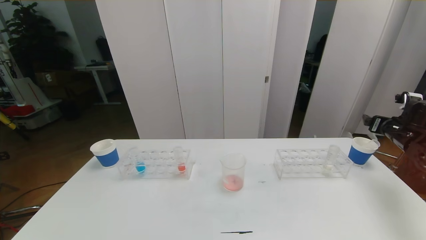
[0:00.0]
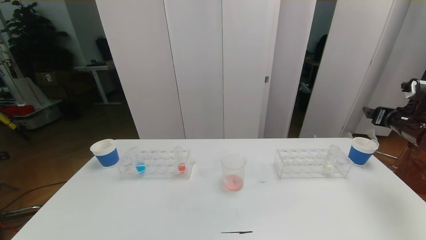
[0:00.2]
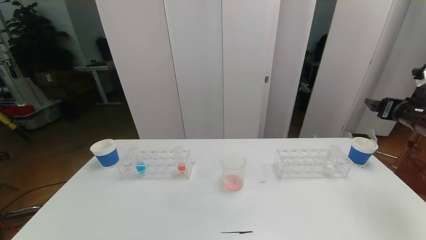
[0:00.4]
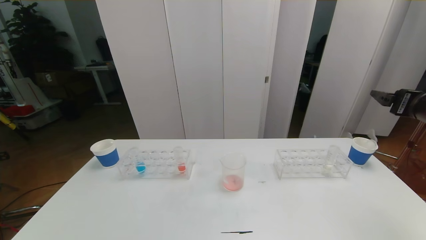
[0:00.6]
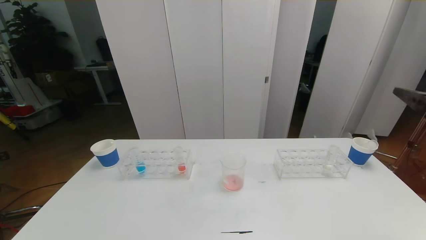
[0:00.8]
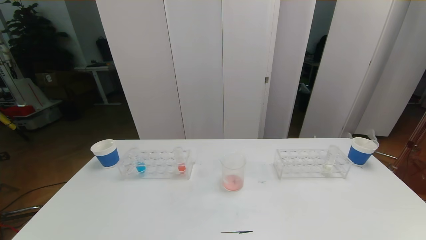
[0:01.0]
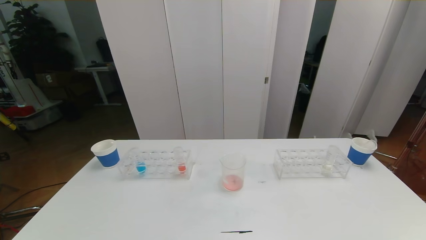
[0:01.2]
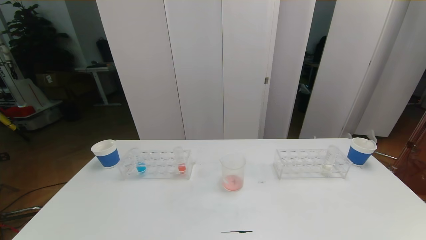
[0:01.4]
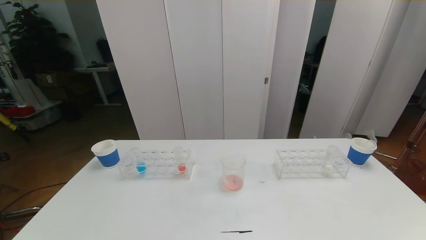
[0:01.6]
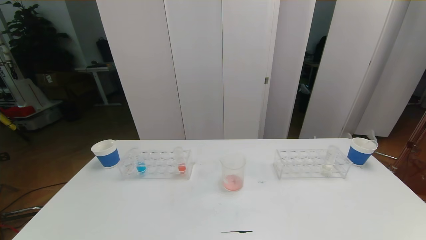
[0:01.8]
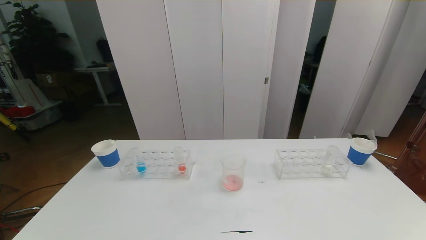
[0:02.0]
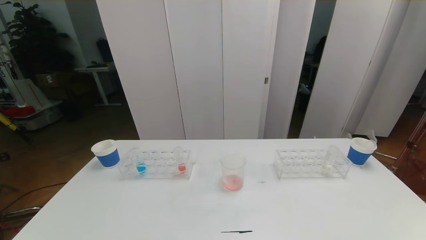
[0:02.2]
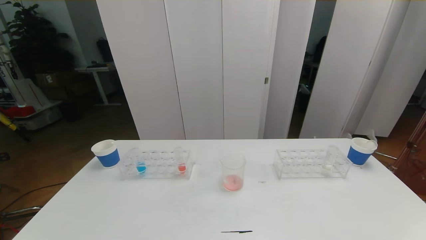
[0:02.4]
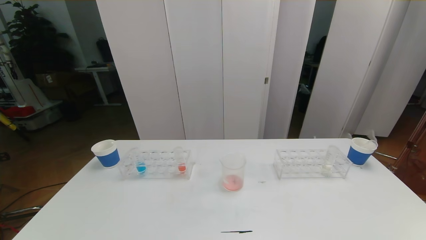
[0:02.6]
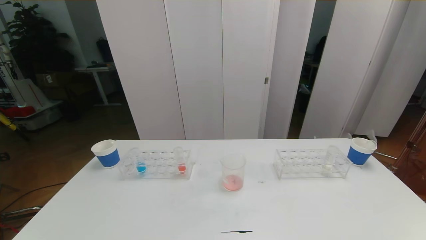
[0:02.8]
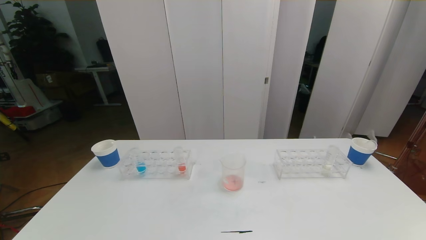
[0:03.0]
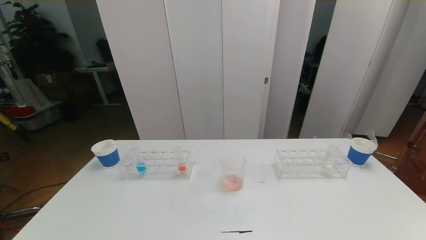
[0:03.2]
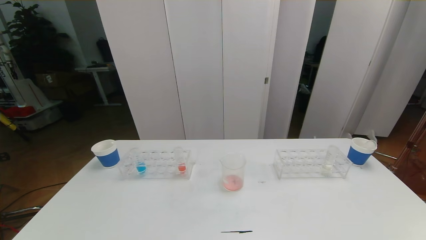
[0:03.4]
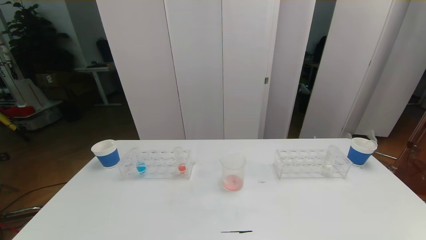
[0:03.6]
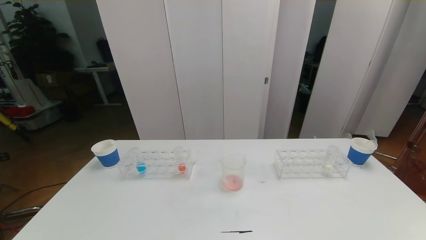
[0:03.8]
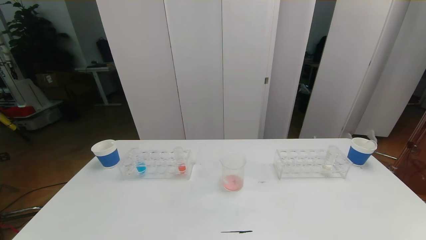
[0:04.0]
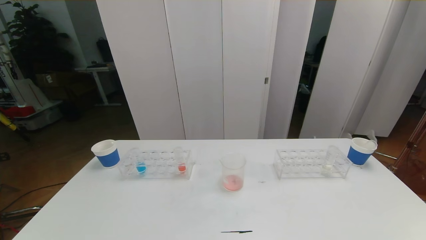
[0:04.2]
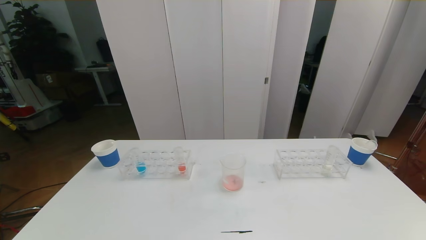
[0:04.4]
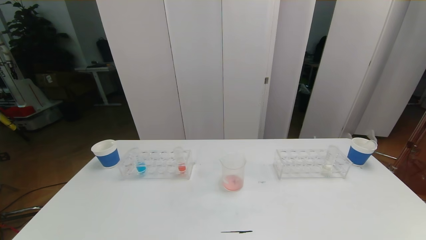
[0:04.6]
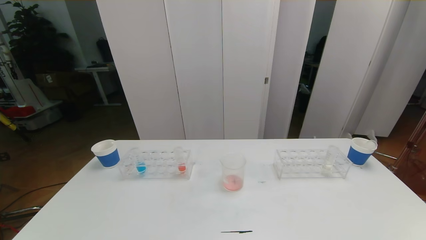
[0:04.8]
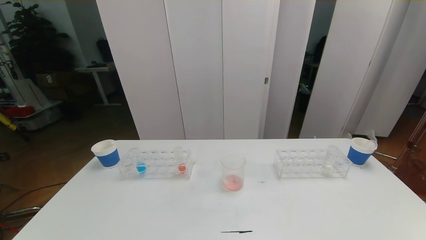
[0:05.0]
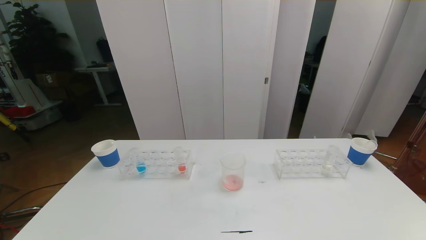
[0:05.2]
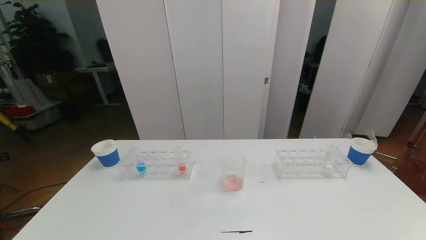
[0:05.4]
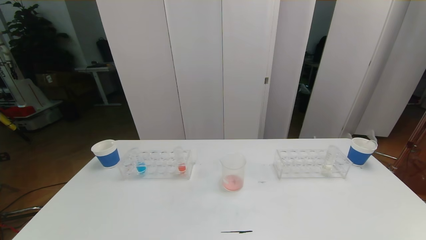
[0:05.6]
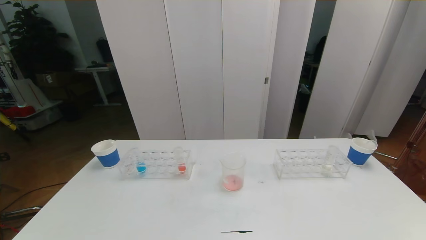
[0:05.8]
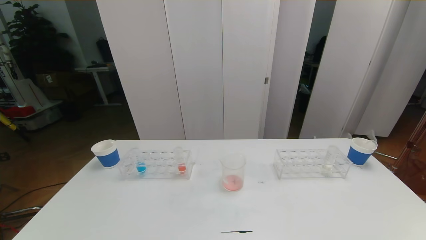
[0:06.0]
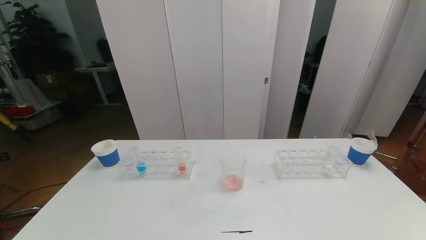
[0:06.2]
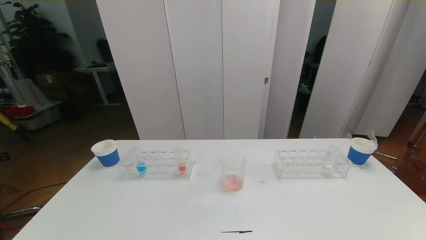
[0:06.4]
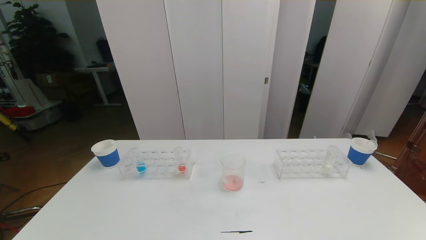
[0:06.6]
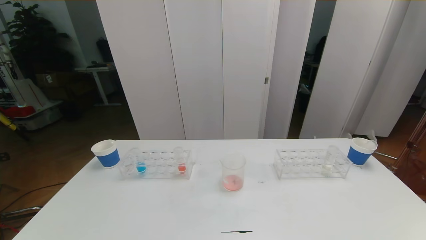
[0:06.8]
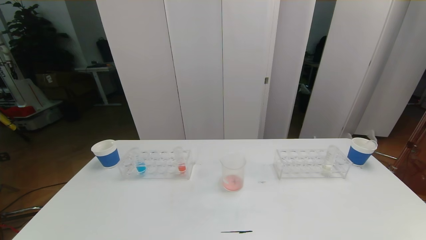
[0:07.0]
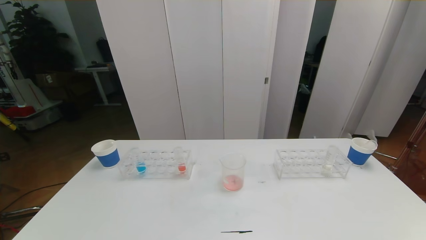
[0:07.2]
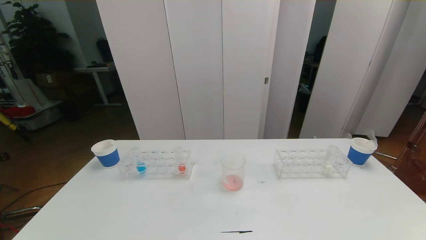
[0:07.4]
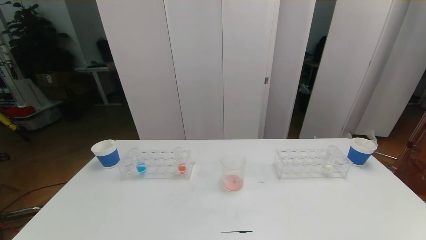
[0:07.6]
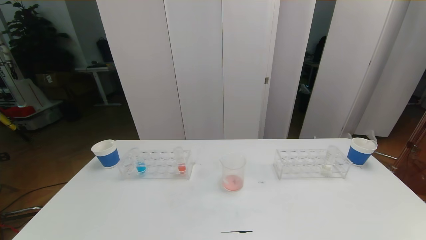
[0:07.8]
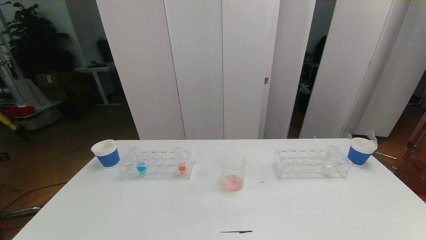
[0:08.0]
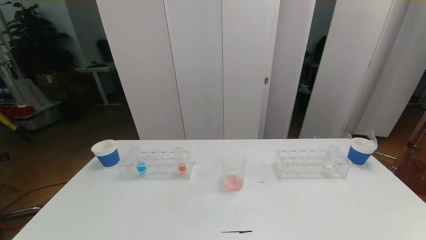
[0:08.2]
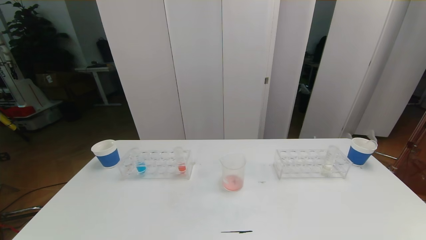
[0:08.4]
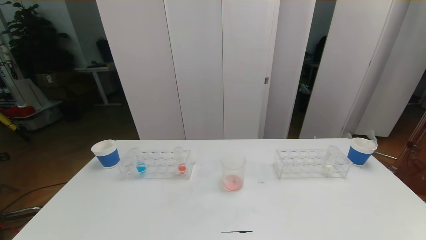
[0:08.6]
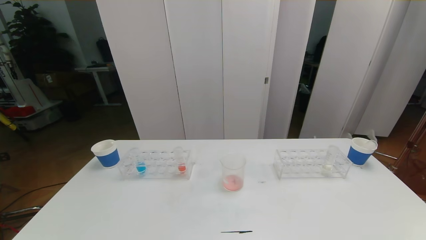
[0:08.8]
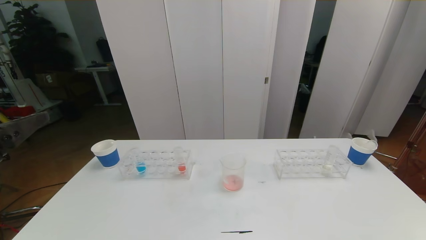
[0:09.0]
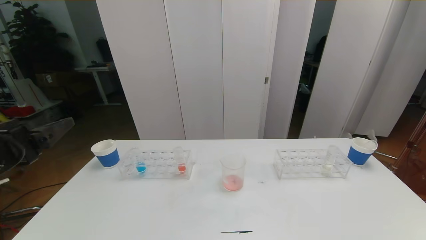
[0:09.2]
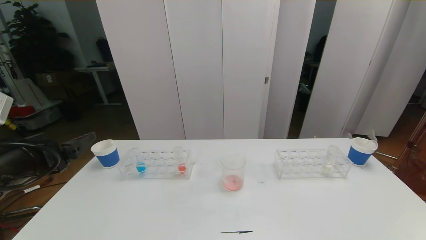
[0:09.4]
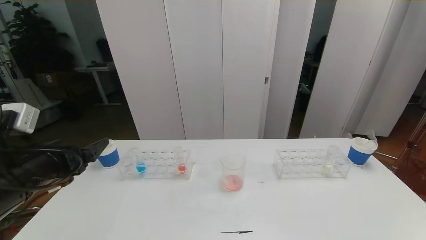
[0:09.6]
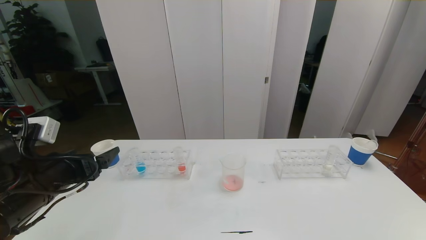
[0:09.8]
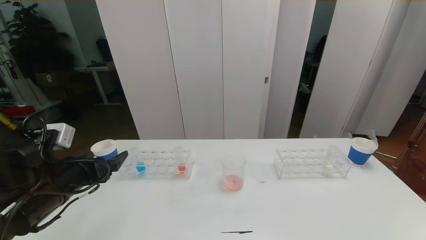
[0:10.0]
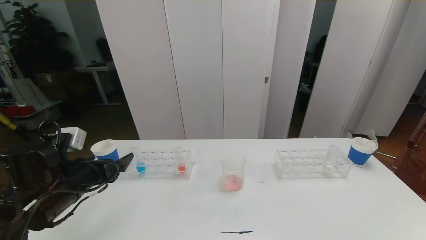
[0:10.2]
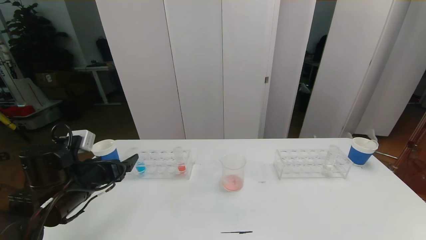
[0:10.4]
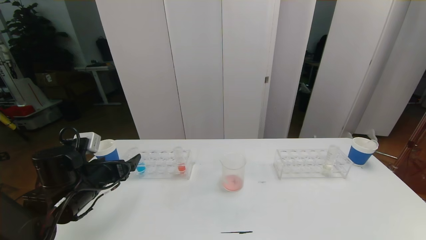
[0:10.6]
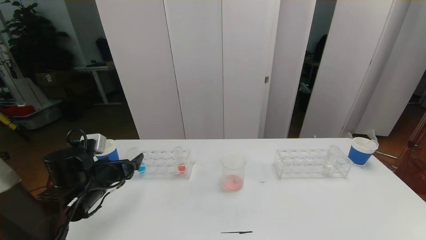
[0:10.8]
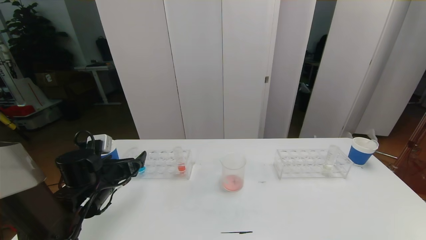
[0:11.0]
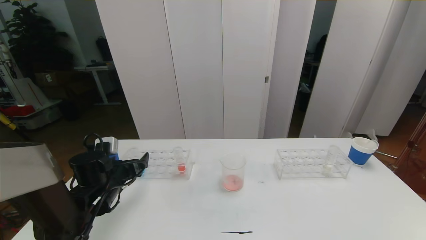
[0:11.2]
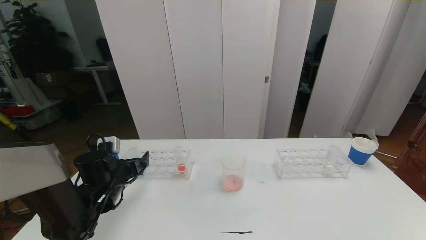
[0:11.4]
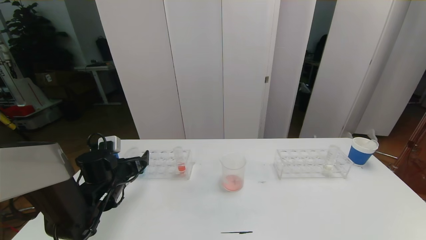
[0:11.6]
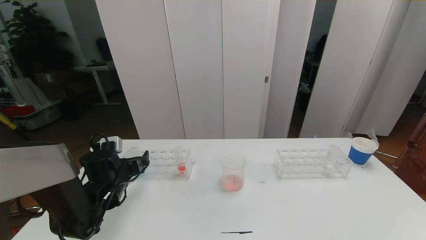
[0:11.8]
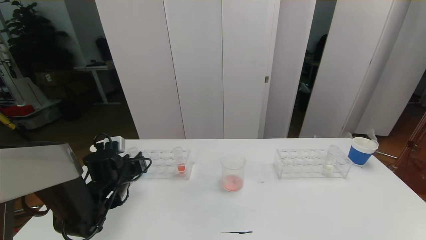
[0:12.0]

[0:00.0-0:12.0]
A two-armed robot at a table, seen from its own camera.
Task of the whole recording: pick up the test tube with red pigment the test tube with blue pigment and the test tube with white pigment by grippers and pour them into the beaker.
Step, 0:00.0 to 0:03.4: Pour the red reagent into the graduated cylinder and place the test tube into the paper cup.
0:00.0 to 0:01.6: The right gripper shifts roughly 40 cm backward.
0:03.0 to 0:06.0: Both grippers stay put.
0:09.0 to 0:10.4: The left gripper travels downward and forward by some 20 cm.
0:10.4 to 0:12.0: The left gripper goes about 10 cm forward and downward, and closes.

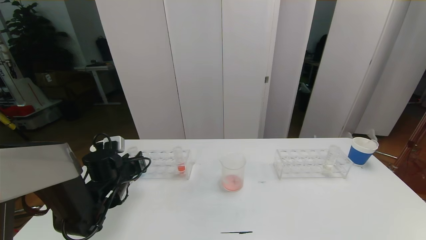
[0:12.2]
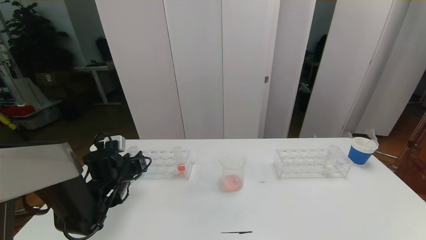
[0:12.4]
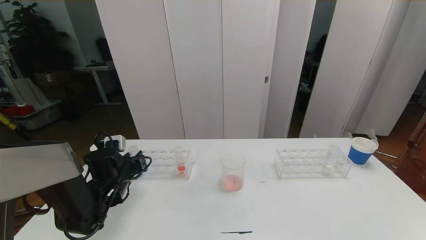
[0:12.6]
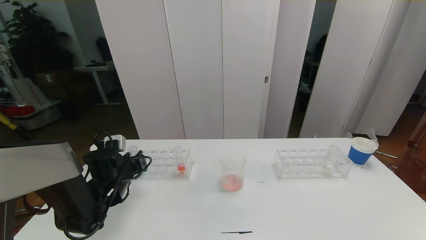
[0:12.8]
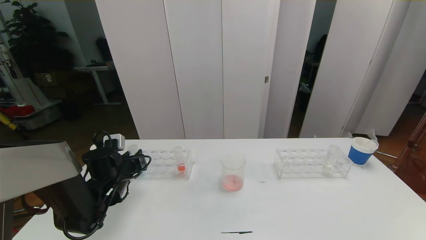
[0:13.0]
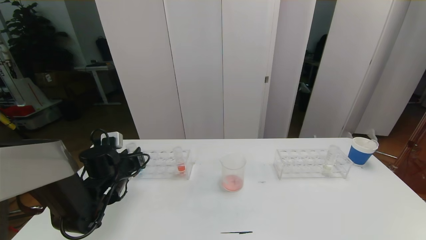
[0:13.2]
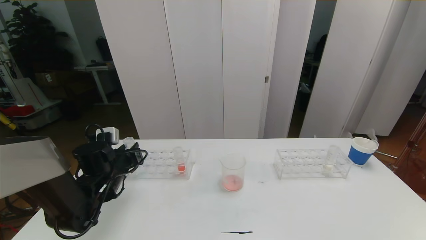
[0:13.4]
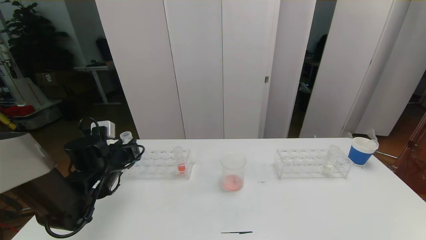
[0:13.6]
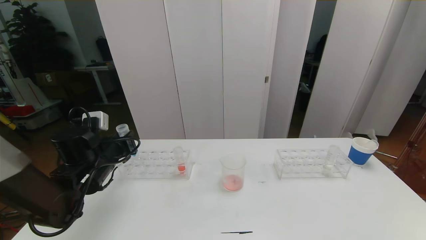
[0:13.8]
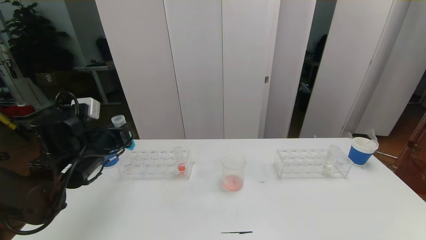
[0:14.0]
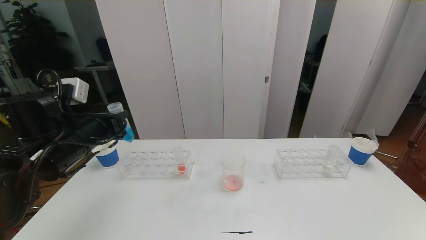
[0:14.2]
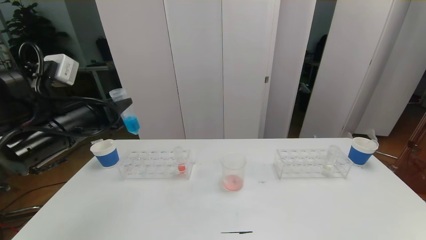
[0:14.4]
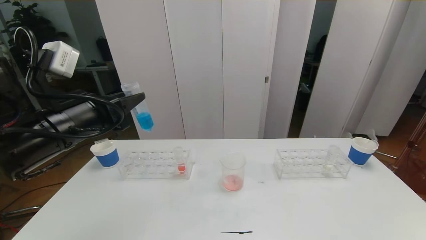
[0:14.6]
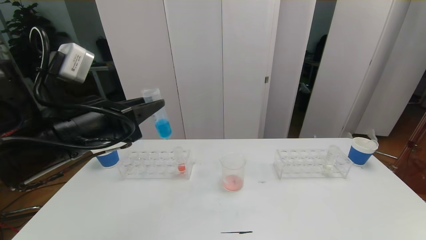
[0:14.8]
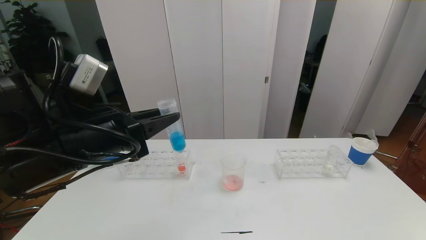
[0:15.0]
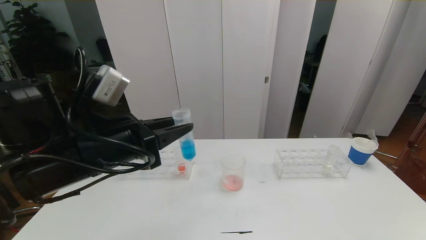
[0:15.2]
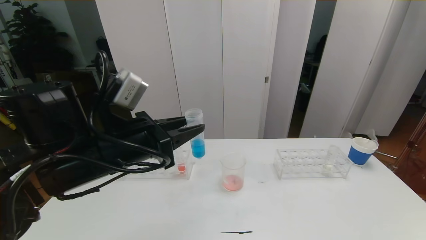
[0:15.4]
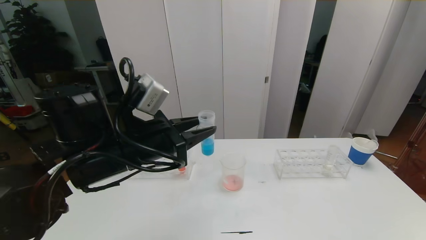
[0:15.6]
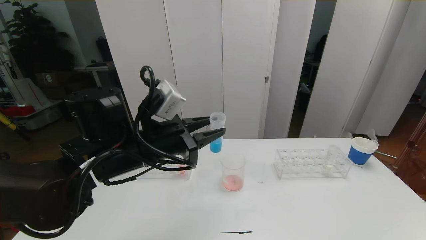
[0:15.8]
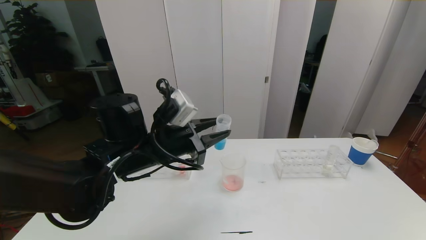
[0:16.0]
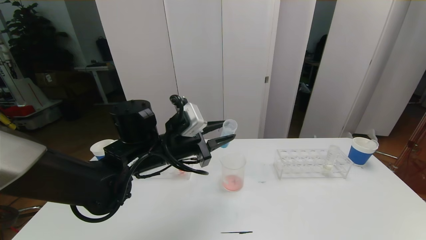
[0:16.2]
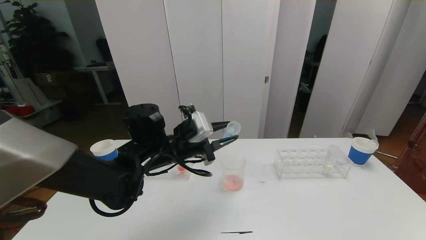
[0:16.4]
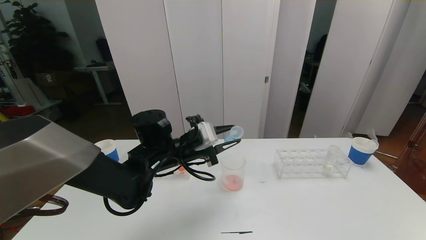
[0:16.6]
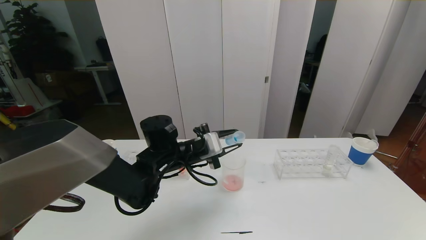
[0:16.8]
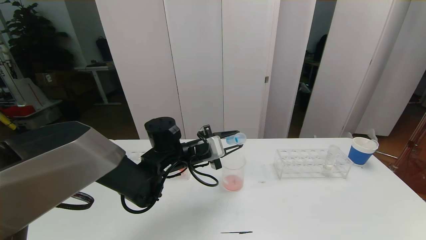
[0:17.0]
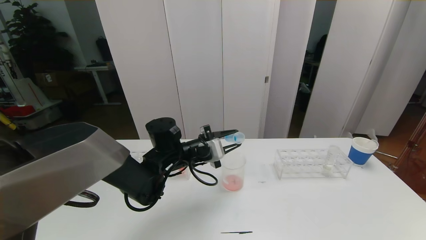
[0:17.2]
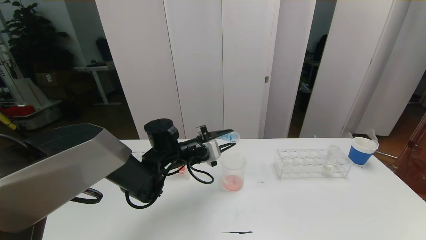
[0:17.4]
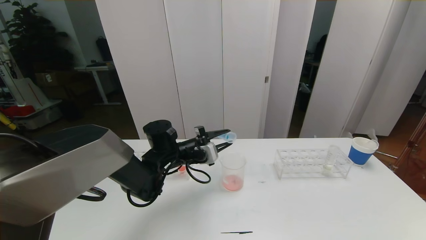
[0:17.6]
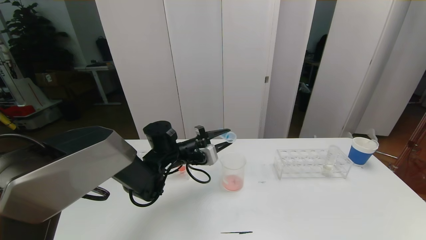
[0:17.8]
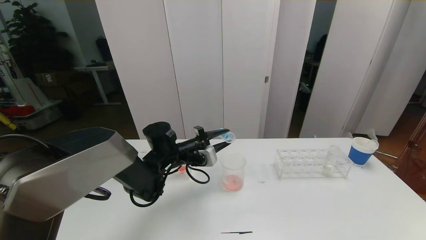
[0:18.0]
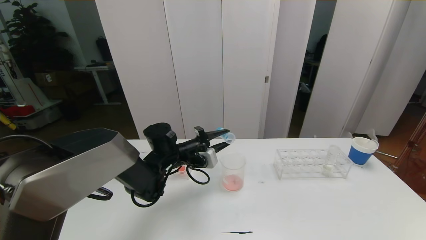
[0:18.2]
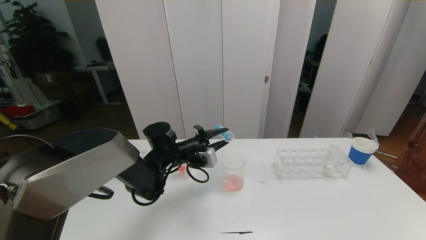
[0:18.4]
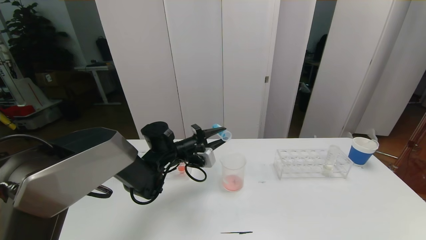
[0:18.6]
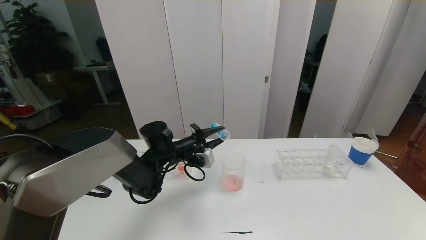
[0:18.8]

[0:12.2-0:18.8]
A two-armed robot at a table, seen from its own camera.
Task of the whole recording: pick up the test tube with red pigment the test tube with blue pigment and the test tube with white pigment by grippers and pour them into the beaker.
0:12.2 to 0:13.8: The left gripper shifts roughly 10 cm upward.
0:13.8 to 0:15.4: The left gripper heads to the right, upward and backward, covering roughly 15 cm.
0:15.4 to 0:17.2: The left gripper is displaced forward, downward and to the right by about 20 cm.
0:17.2 to 0:18.8: The left gripper moves roughly 5 cm.
